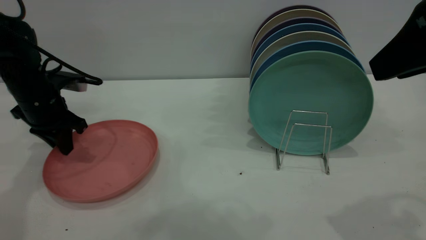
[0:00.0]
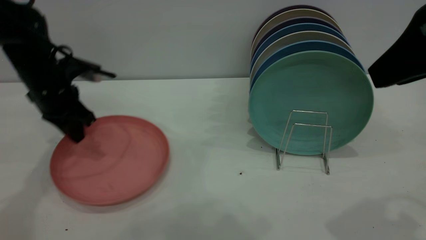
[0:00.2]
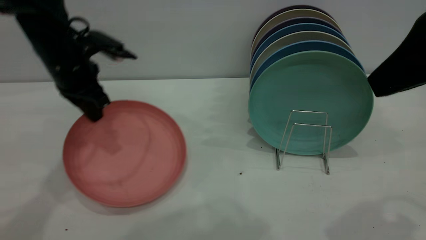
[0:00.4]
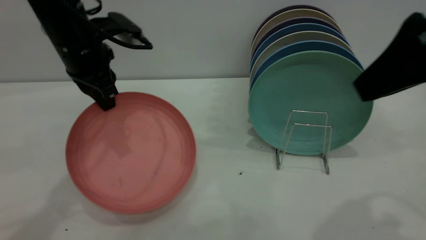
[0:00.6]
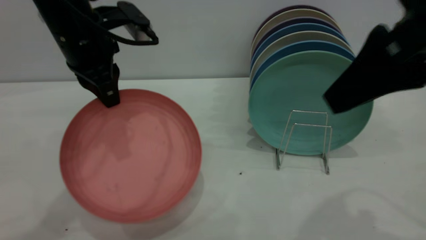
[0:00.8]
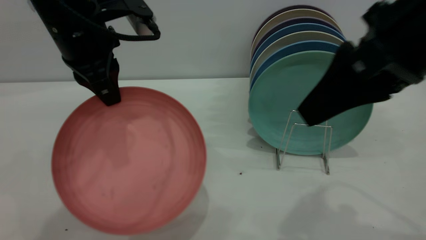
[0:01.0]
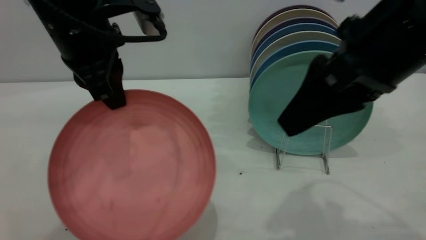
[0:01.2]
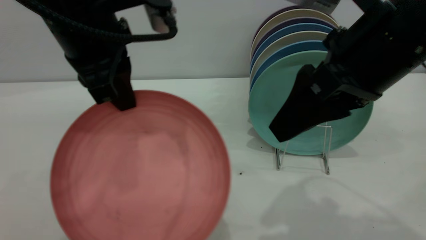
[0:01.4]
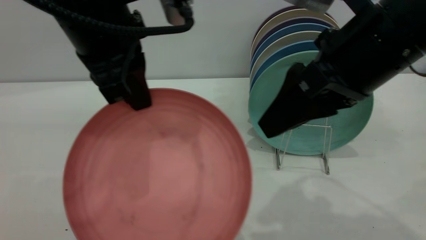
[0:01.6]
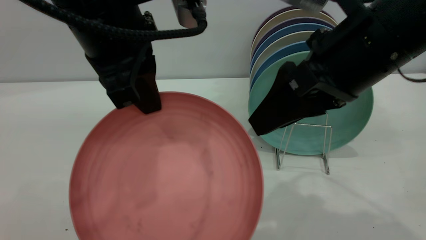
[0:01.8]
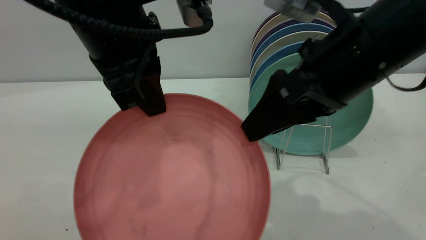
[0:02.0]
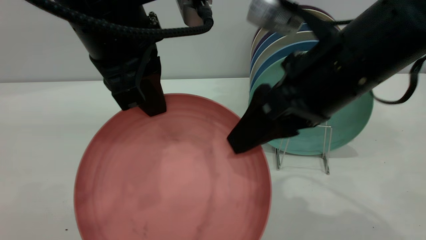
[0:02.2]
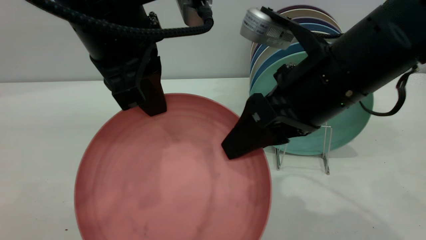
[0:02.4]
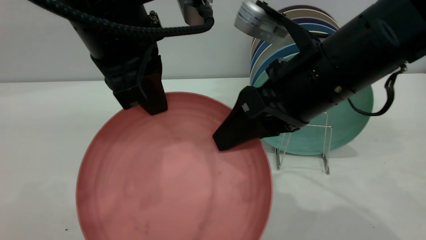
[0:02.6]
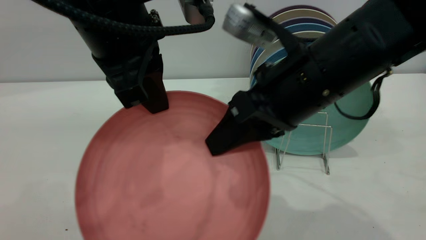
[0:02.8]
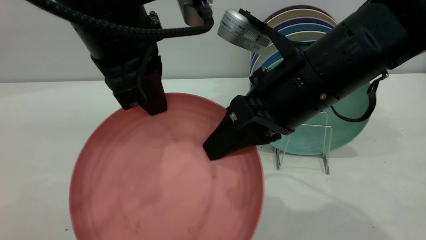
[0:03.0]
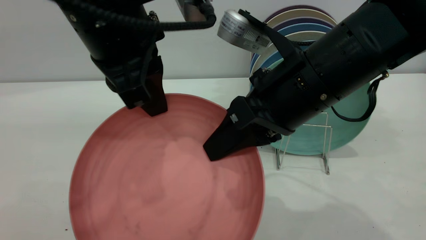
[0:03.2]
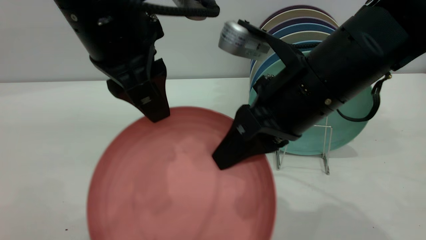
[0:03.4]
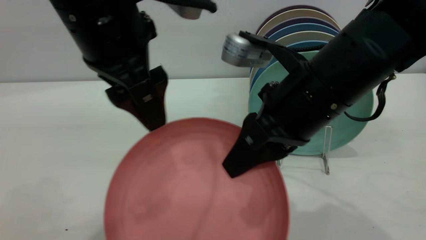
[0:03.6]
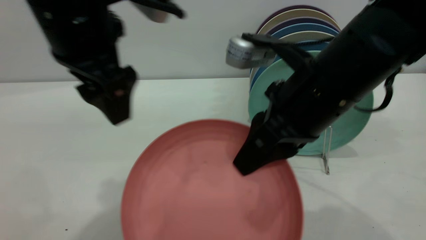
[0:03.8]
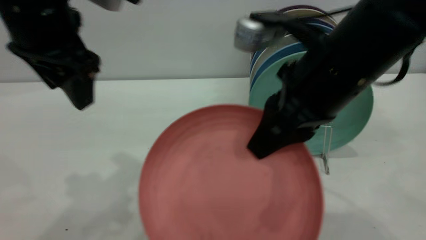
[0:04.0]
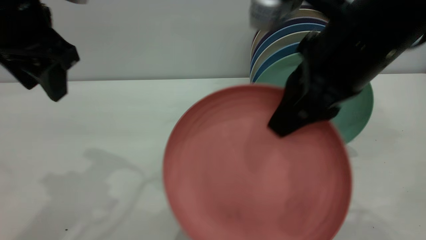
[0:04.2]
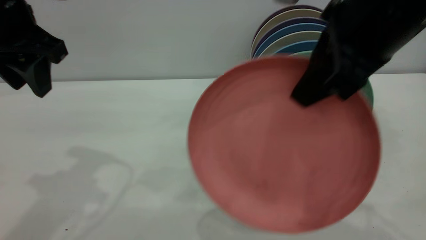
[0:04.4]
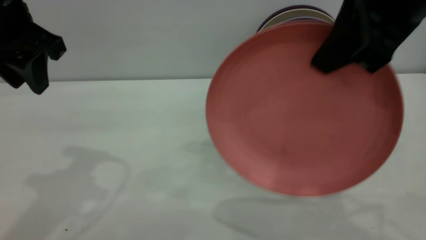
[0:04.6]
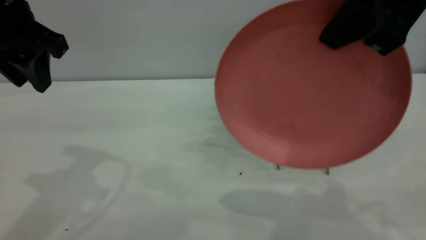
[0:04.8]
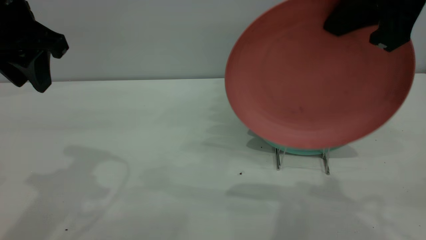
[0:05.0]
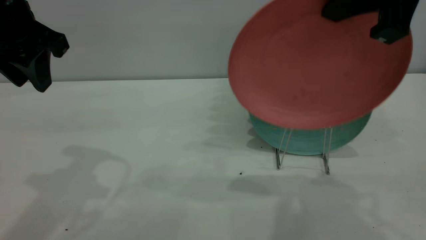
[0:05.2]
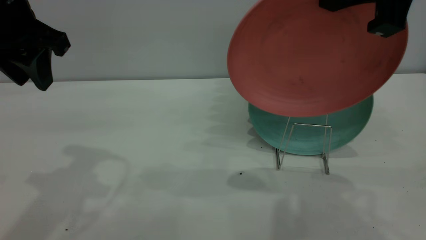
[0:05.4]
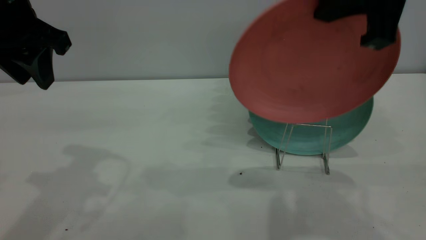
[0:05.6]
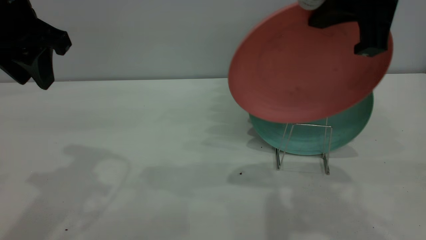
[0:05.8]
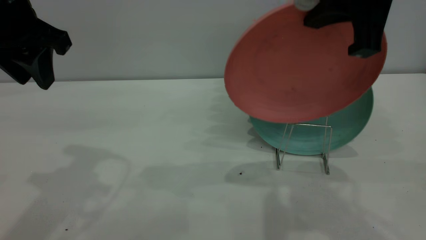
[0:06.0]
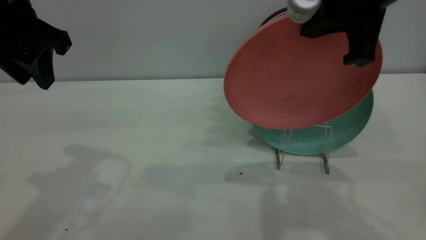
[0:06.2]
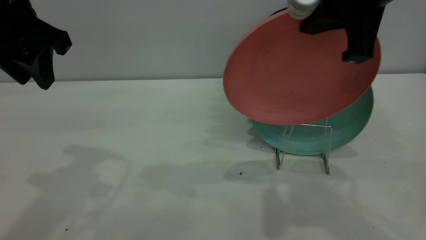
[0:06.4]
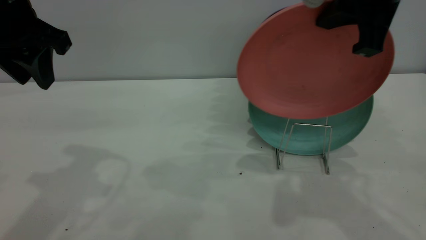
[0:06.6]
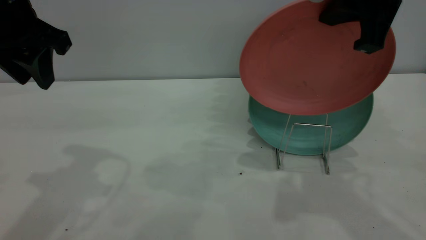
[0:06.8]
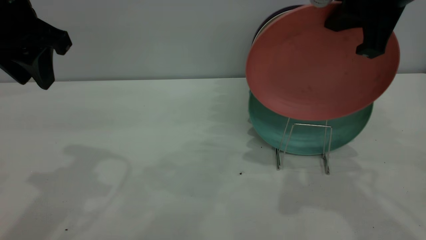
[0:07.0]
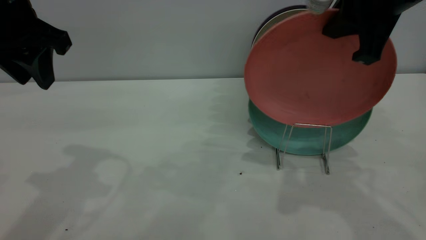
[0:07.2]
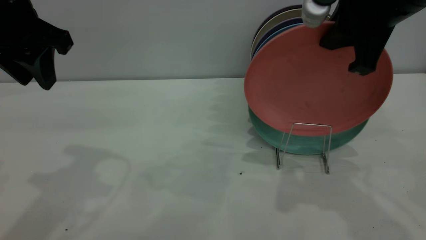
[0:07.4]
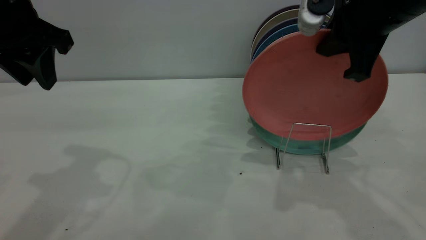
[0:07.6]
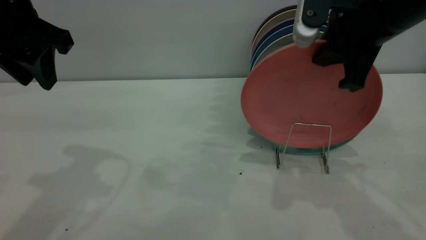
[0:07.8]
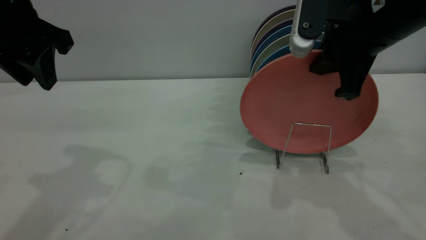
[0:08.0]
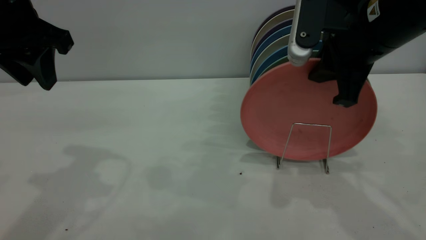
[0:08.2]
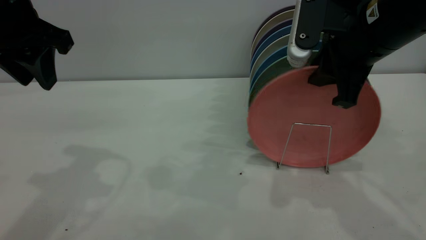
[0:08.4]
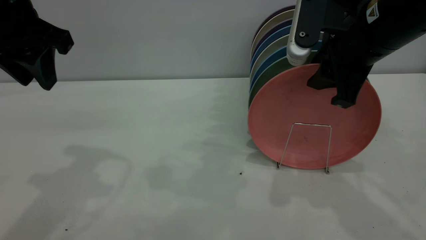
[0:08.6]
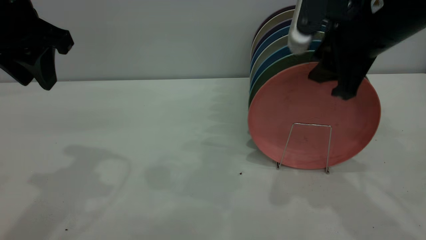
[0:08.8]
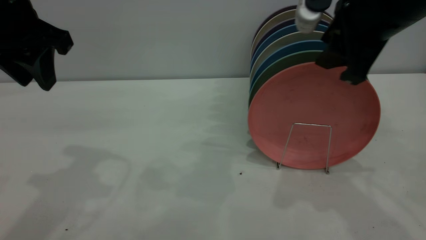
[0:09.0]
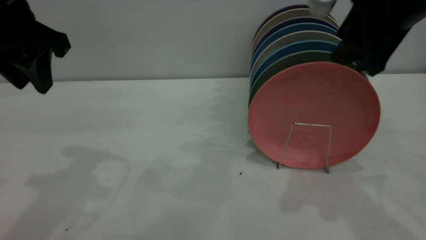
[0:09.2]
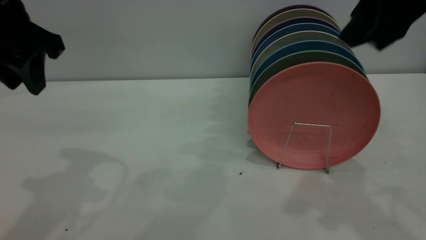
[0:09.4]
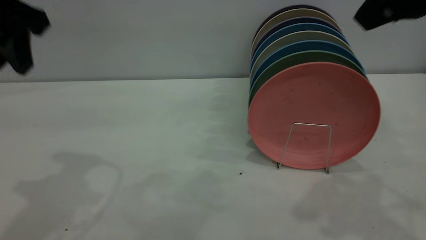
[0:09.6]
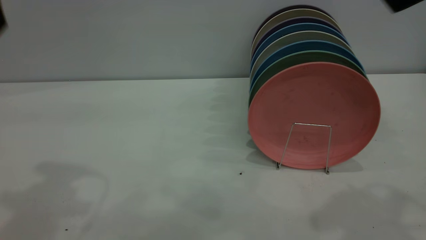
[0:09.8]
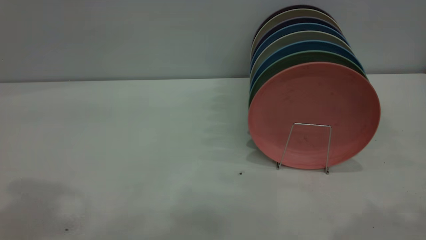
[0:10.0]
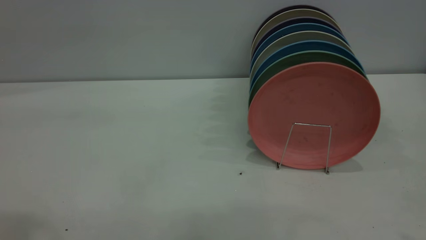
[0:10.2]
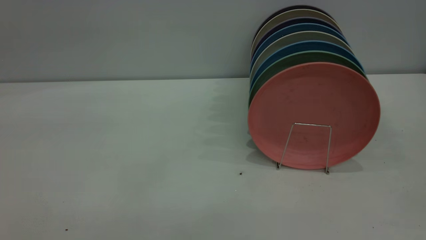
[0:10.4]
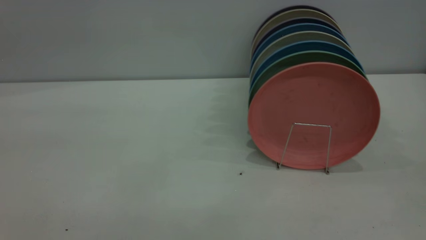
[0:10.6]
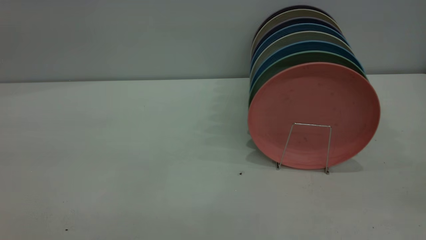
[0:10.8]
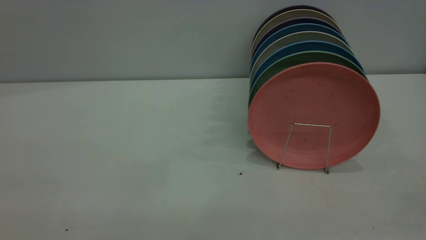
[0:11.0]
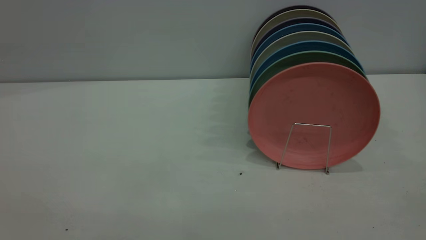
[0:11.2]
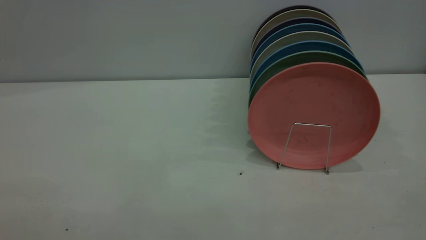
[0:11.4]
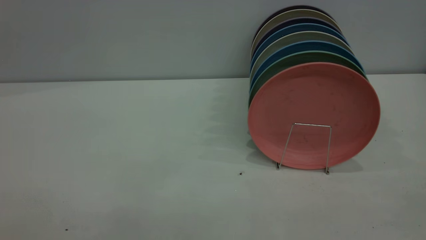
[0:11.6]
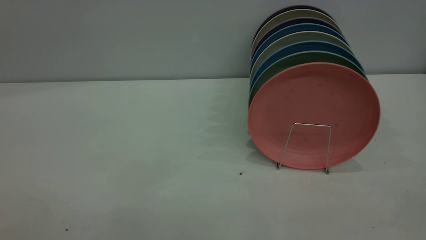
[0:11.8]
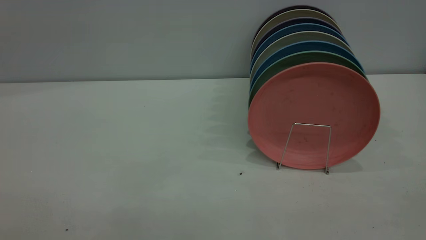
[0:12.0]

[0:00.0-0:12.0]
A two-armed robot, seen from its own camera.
Task of the whole recording: put the plate on the plate rack.
Step, 0:00.4 to 0:03.6: Pass the plate from the left gripper to the right gripper.
Step, 0:03.8 to 0:09.4: Place the plate on the shelf.
0:00.0 to 0:01.6: The right gripper moves to the left and downward, about 10 cm; the left gripper is displaced to the right, upward and backward by about 30 cm.
0:01.6 to 0:03.0: The right gripper heads to the left, covering roughly 5 cm, and closes.
0:03.0 to 0:04.4: The right gripper moves upward and to the right, roughly 10 cm; the left gripper heads to the left, covering approximately 15 cm, and opens up.
0:06.0 to 0:07.6: The right gripper moves approximately 5 cm.
0:07.6 to 0:09.0: The right gripper opens its fingers.
0:09.0 to 0:10.4: The two grippers go roughly 30 cm backward and upward.

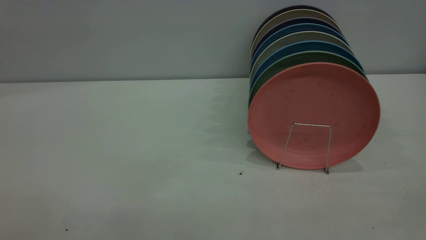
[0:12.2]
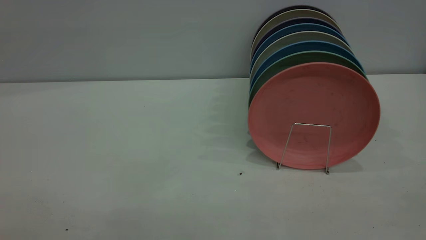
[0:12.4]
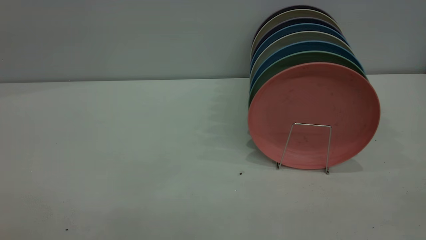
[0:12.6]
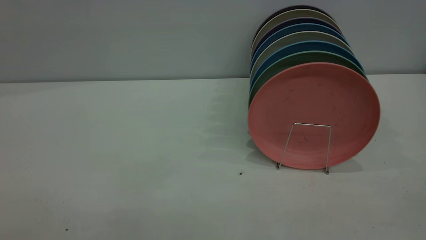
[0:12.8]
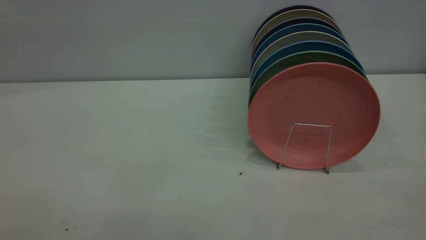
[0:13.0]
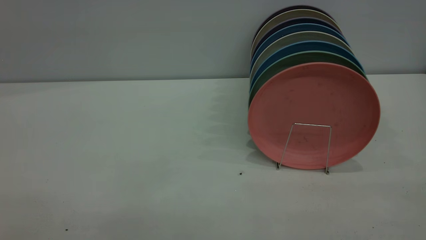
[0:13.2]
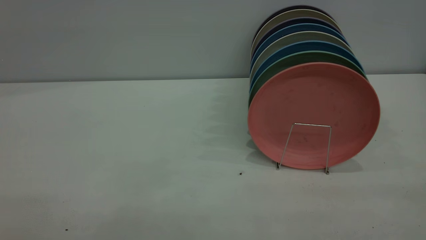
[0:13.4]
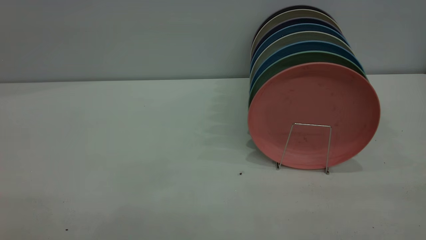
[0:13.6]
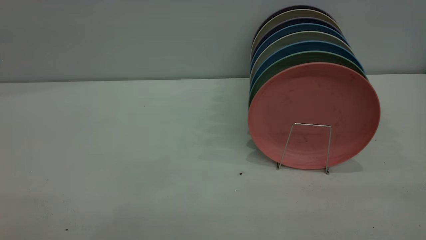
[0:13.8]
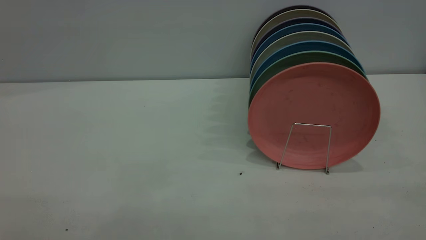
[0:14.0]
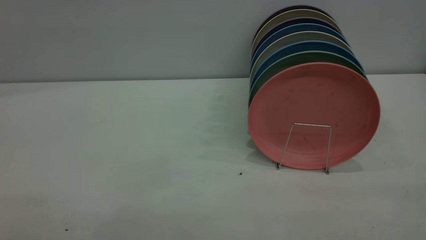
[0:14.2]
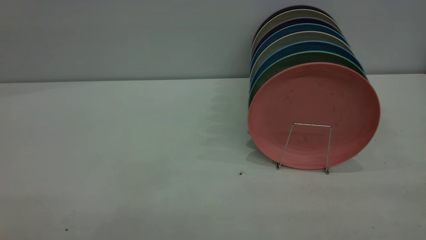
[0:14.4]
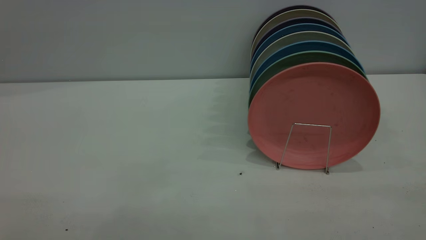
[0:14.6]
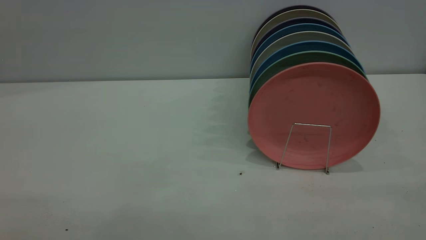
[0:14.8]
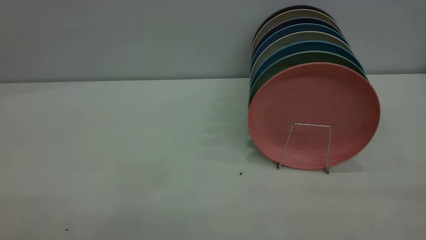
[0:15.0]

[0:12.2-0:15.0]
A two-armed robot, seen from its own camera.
Task of the whole recording: put the plate on the plate rack.
0:13.6 to 0:15.0: The two grippers keep their place.

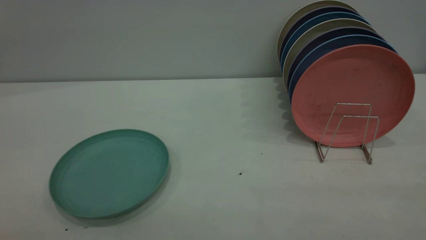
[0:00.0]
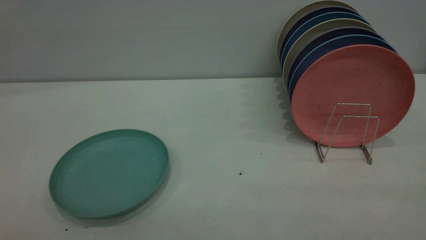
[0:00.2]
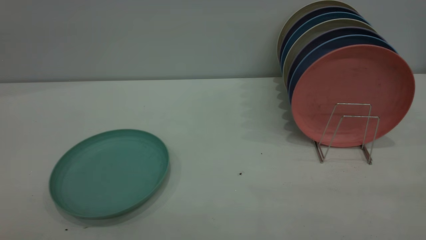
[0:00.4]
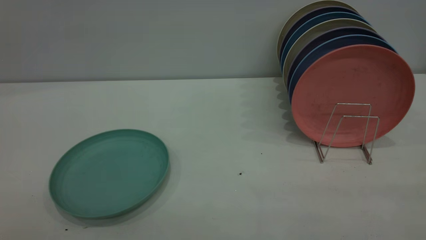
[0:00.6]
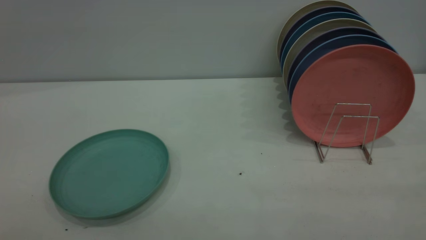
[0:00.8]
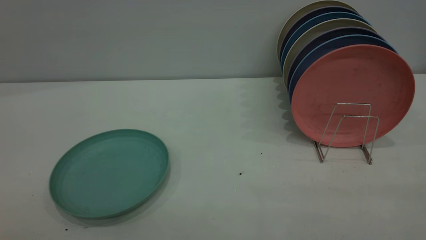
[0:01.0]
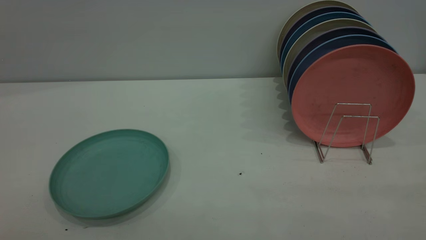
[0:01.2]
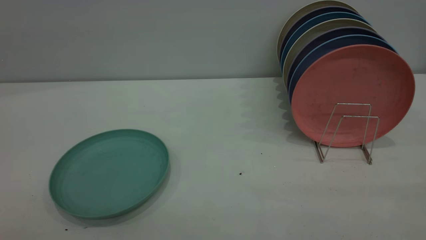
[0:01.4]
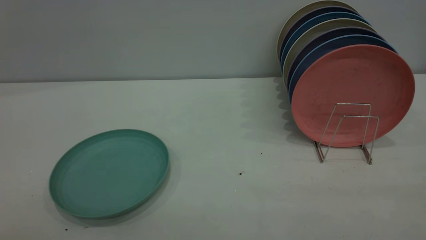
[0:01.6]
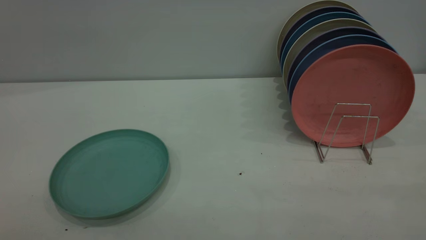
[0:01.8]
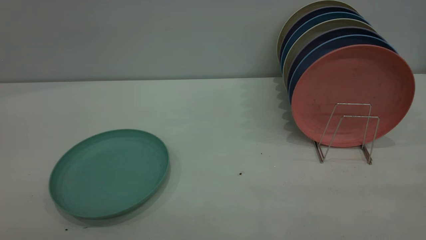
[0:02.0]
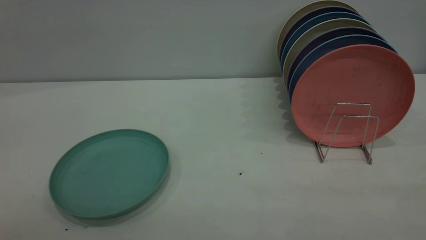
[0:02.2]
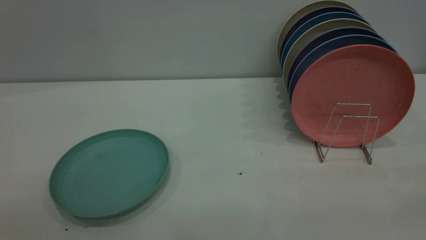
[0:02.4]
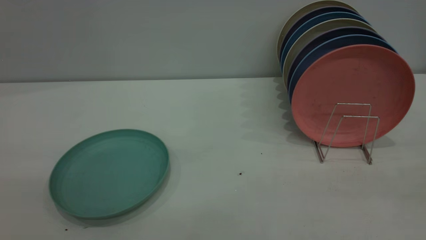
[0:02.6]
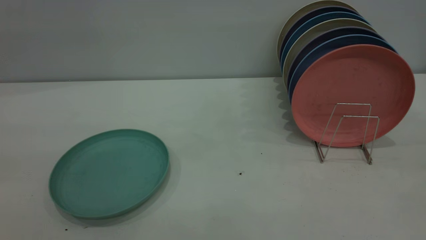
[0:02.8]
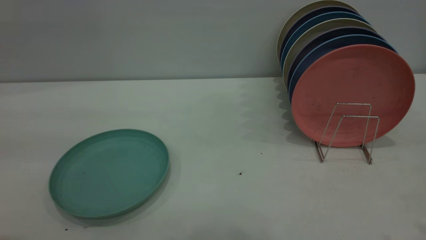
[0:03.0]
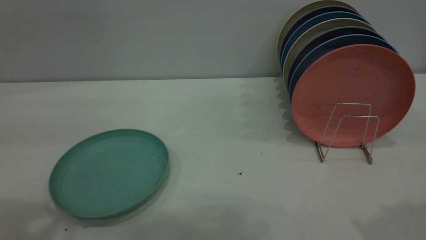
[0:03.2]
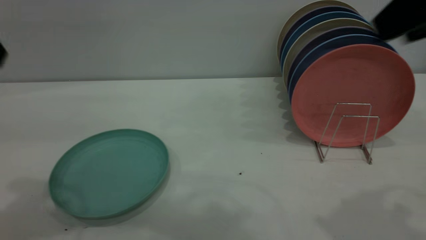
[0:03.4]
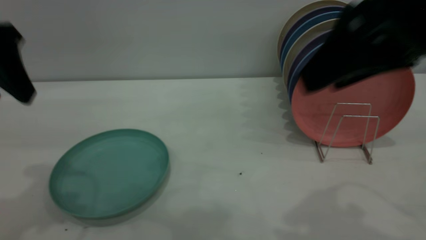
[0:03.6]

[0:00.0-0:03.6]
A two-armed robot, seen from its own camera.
Task of the whole recording: the left gripper grasp the green plate, the left gripper pass the green plate to the right gripper, and the right gripper place the green plate on the plate rack.
0:00.0 to 0:01.8: Both grippers stay about where they are.
0:01.8 to 0:03.6: The left gripper goes about 30 cm forward, while the right gripper travels forward and to the left by approximately 30 cm.
